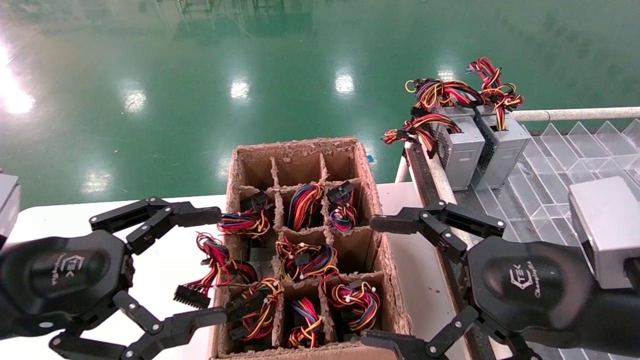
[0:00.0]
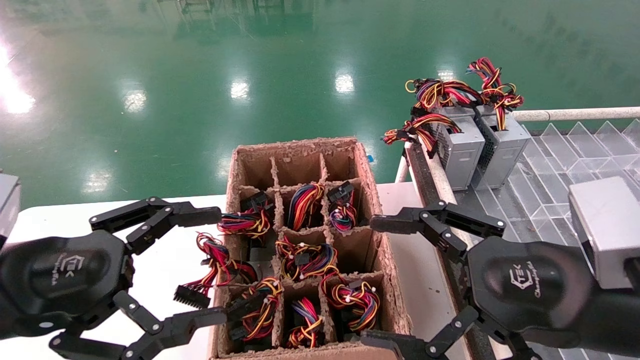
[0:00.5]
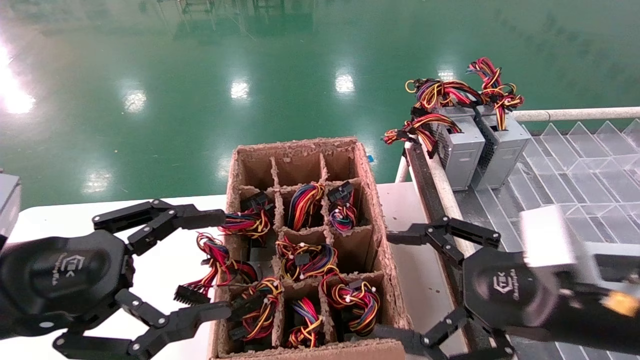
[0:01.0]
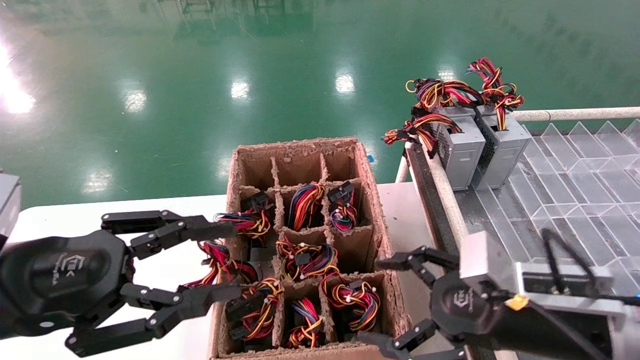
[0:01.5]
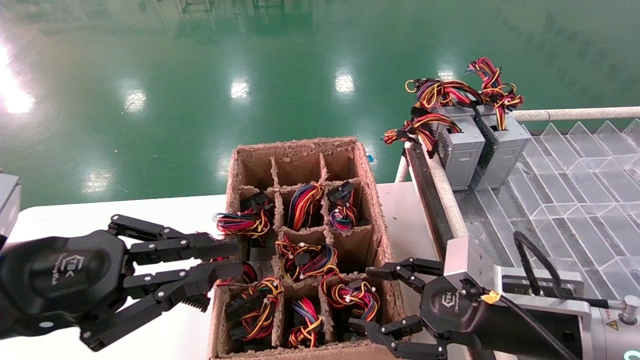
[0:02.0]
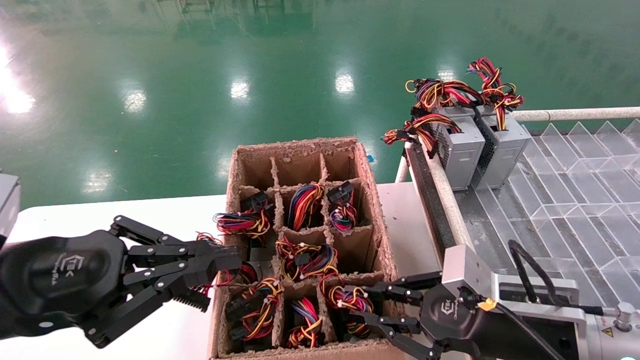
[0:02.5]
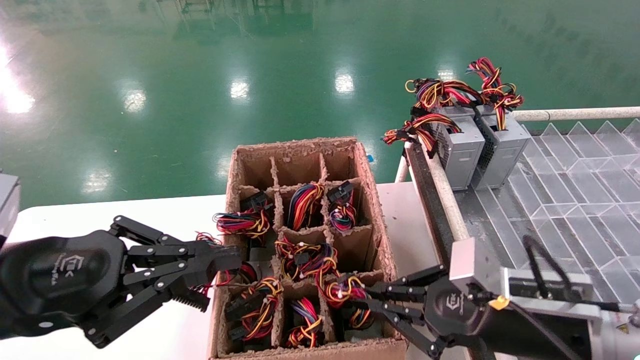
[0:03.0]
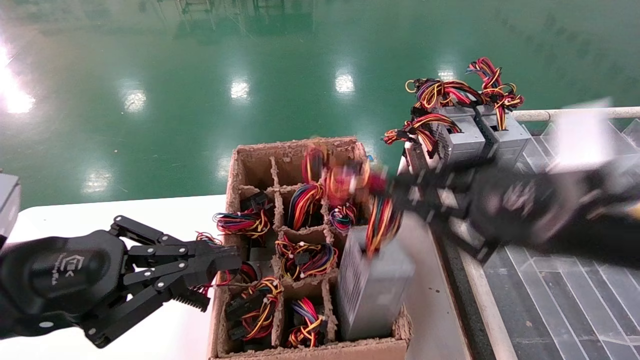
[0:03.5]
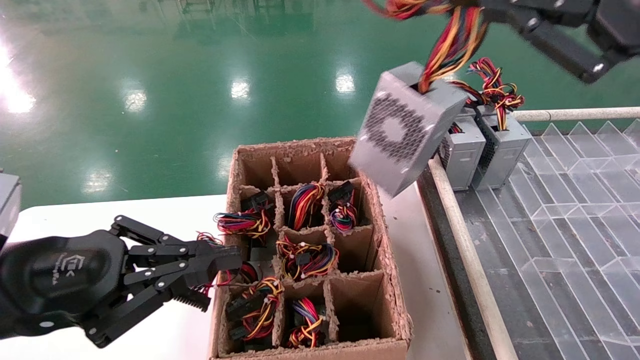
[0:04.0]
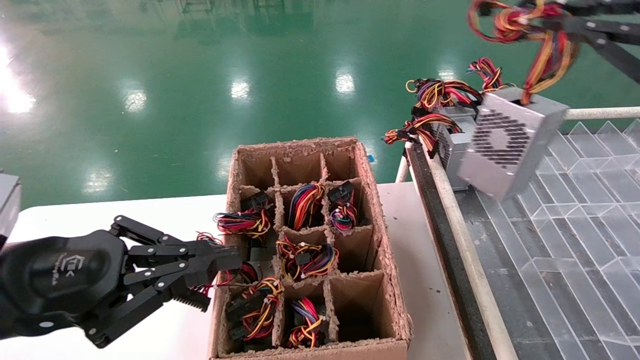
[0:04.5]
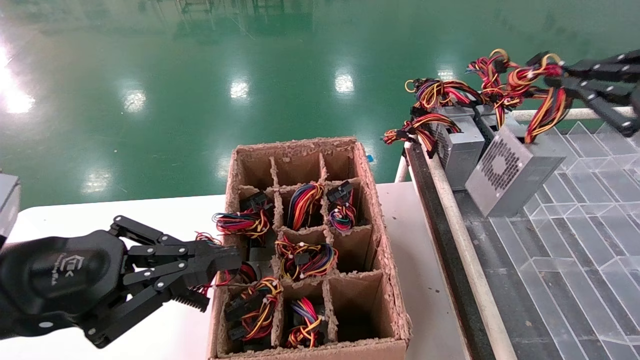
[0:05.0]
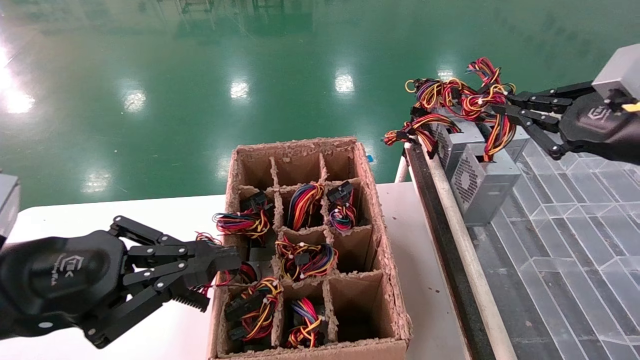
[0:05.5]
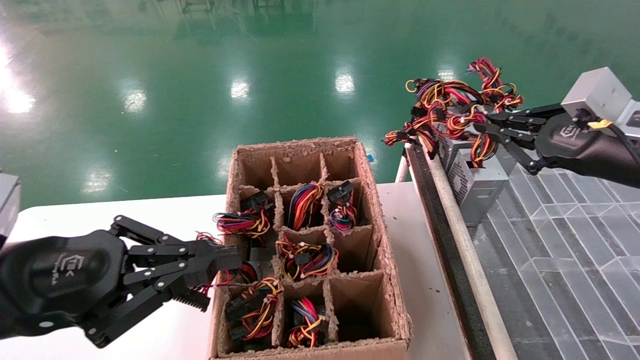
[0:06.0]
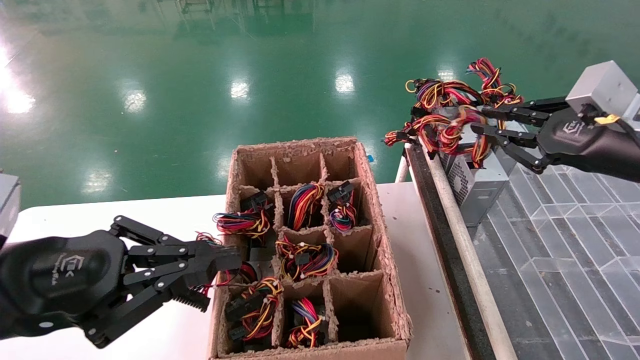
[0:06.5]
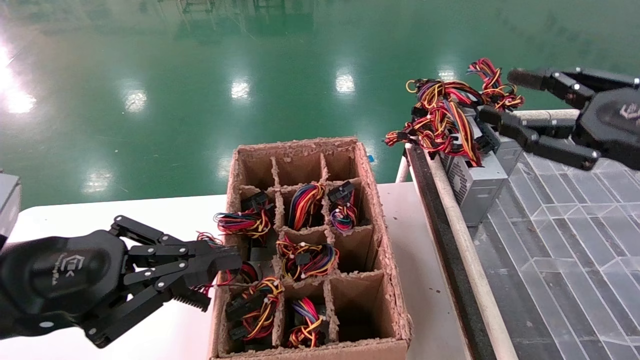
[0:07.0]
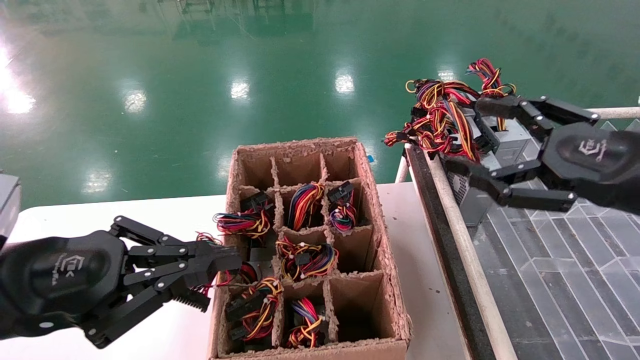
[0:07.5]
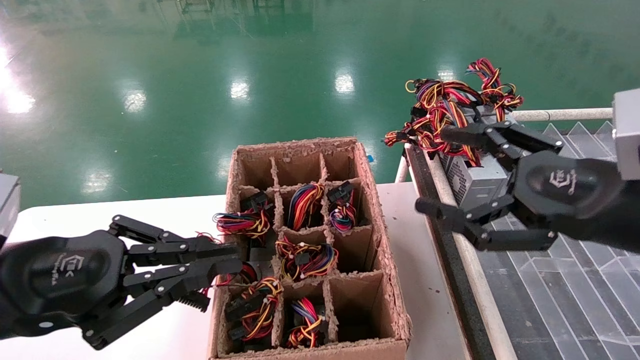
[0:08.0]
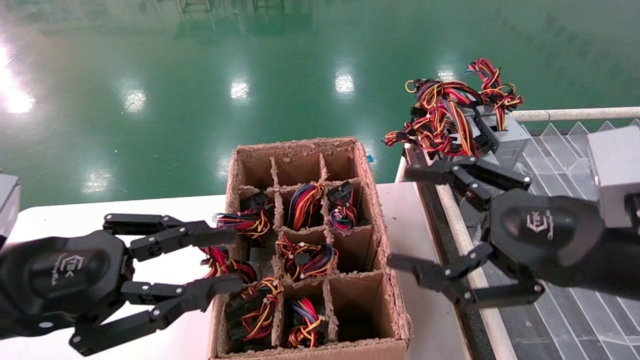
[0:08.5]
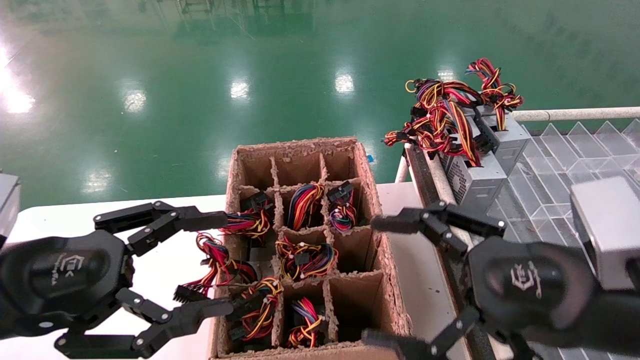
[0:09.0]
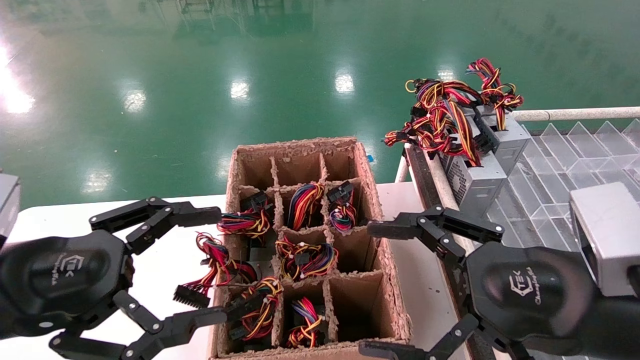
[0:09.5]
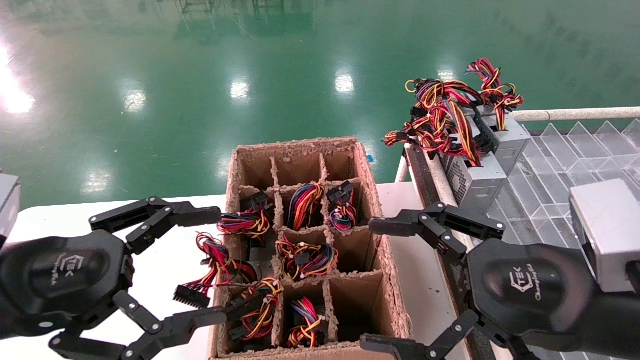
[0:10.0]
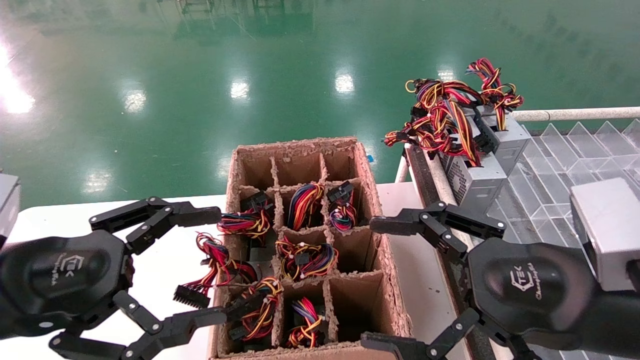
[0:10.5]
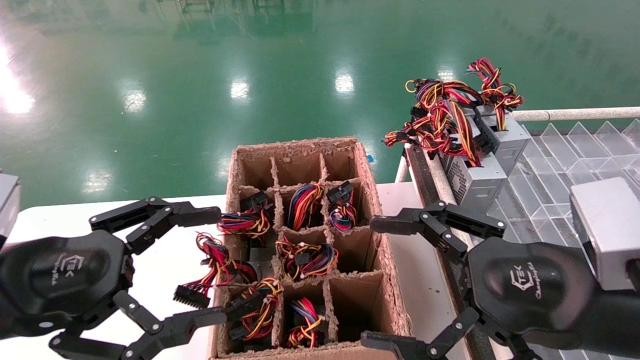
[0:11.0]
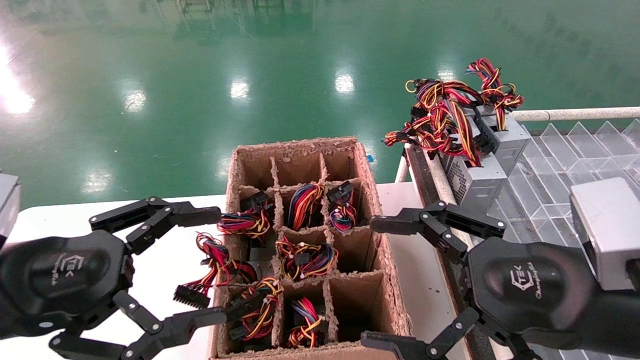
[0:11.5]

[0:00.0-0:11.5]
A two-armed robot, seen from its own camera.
Step, 0:01.0 to 0:02.5: Grab the main unit power supply from the containment box.
Step, 0:03.0 to 0:06.5: Place the main unit power supply in the designated area.
0:00.0 to 0:02.0: The right gripper shifts approximately 10 cm downward and forward; the left gripper closes.
0:02.0 to 0:04.0: The right gripper shifts some 25 cm upward, and closes.
0:04.0 to 0:06.0: The right gripper is displaced forward, downward and to the right by roughly 20 cm.
0:06.0 to 0:07.5: The right gripper goes about 5 cm backward, and opens.
0:07.5 to 0:09.5: The right gripper moves to the left and downward, approximately 10 cm. The left gripper opens up.
0:09.5 to 0:11.5: Both grippers stay about where they are.

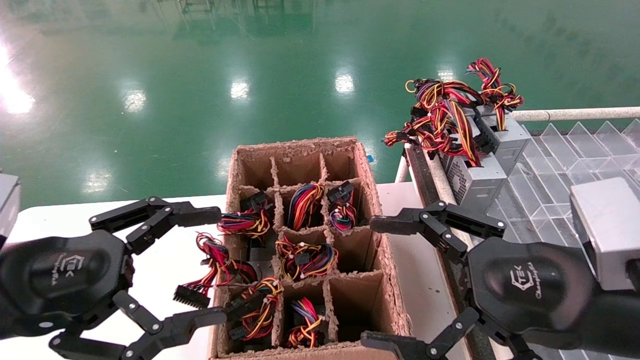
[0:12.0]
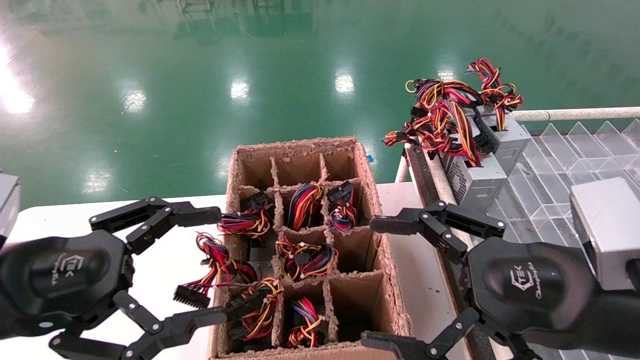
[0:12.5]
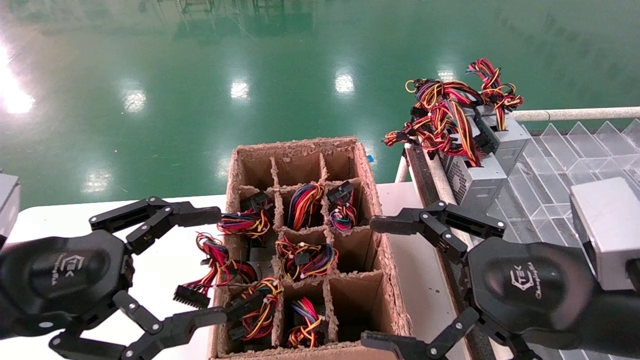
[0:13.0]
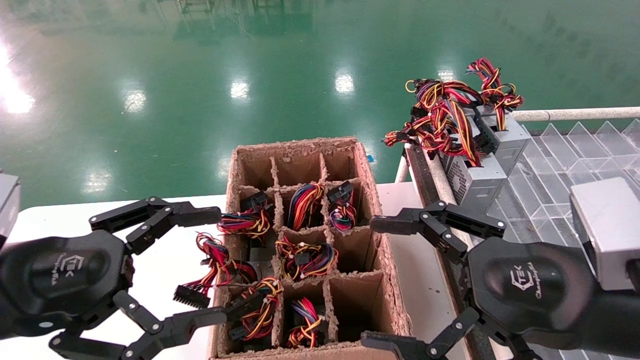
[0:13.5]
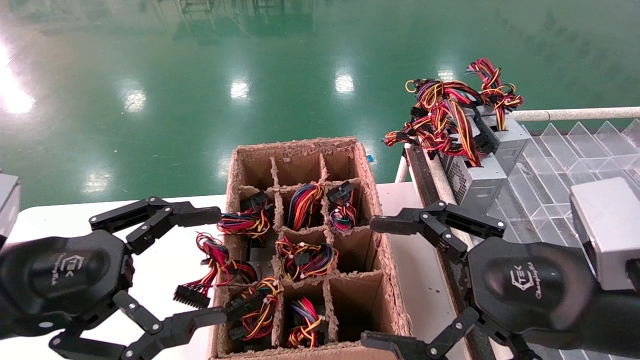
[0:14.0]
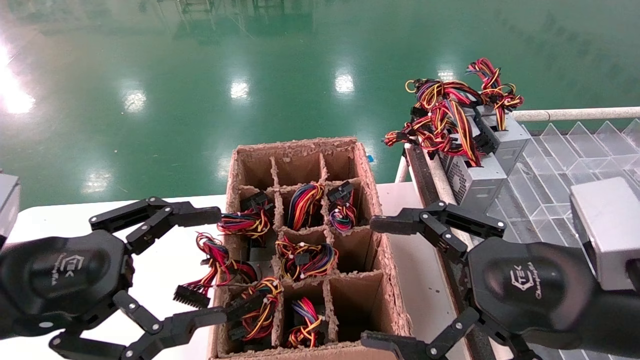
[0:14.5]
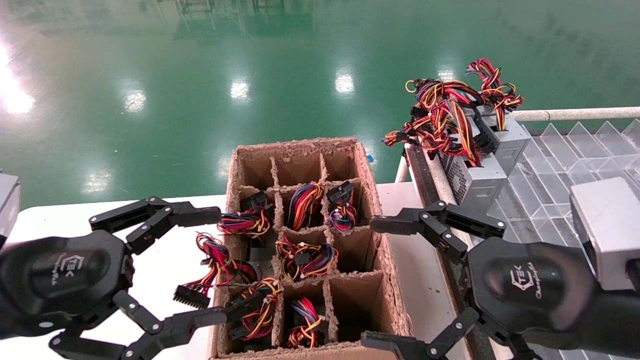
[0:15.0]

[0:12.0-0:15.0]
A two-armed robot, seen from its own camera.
0:12.0 to 0:15.0: Neither gripper changes place.

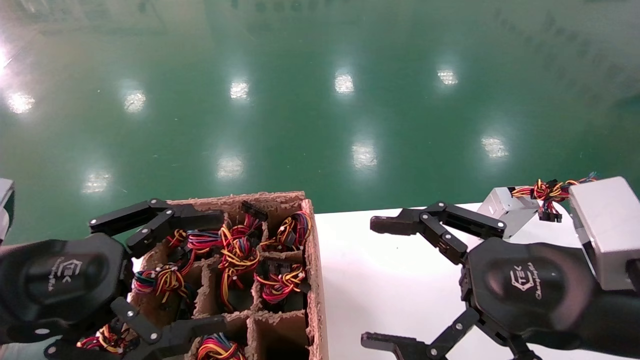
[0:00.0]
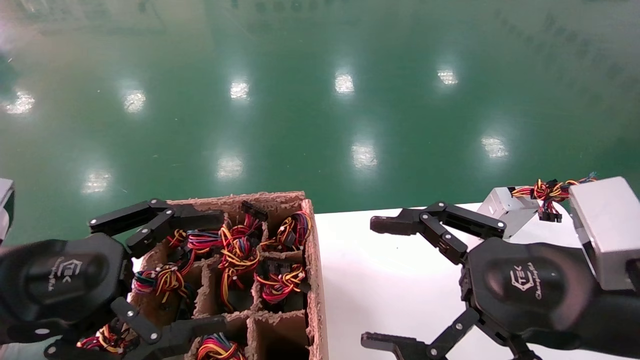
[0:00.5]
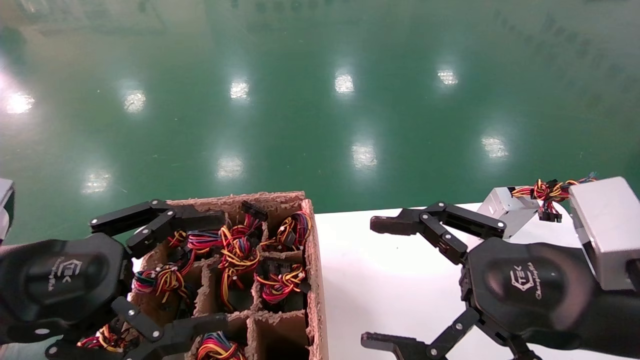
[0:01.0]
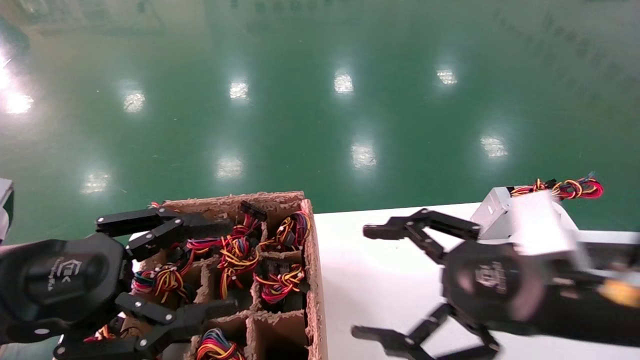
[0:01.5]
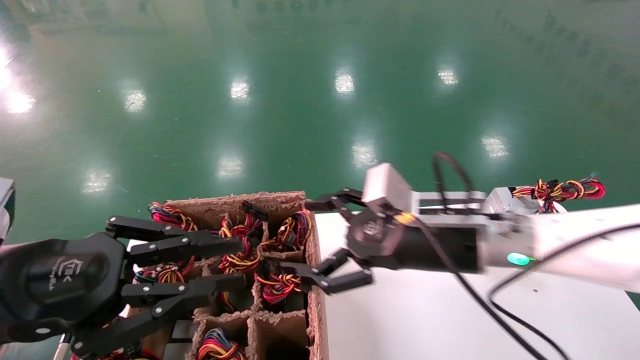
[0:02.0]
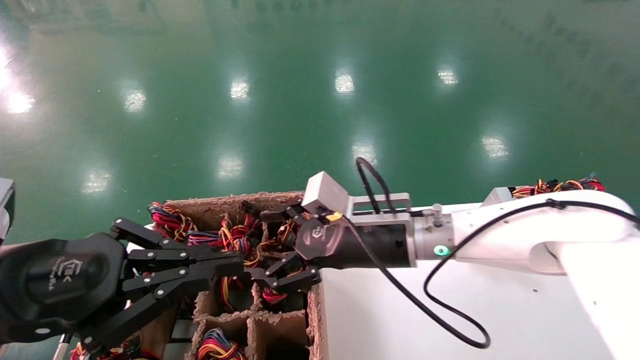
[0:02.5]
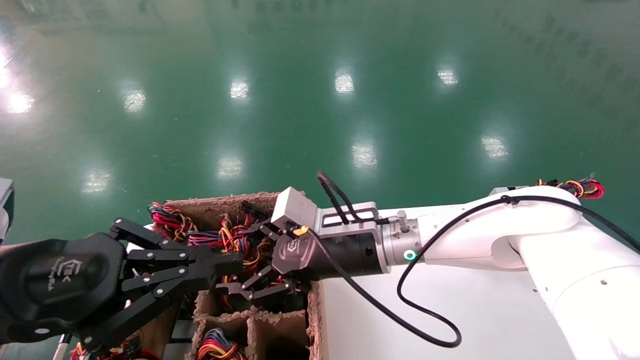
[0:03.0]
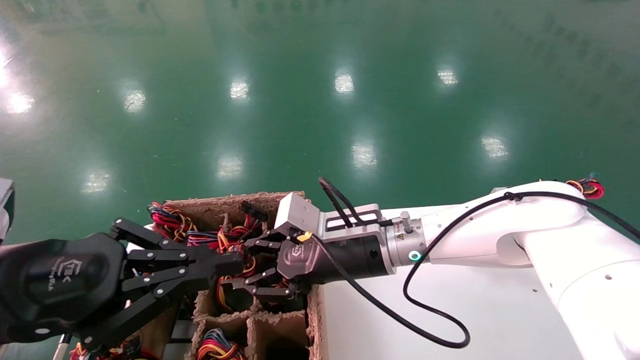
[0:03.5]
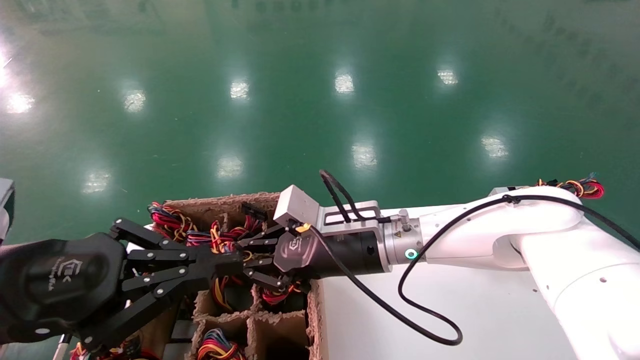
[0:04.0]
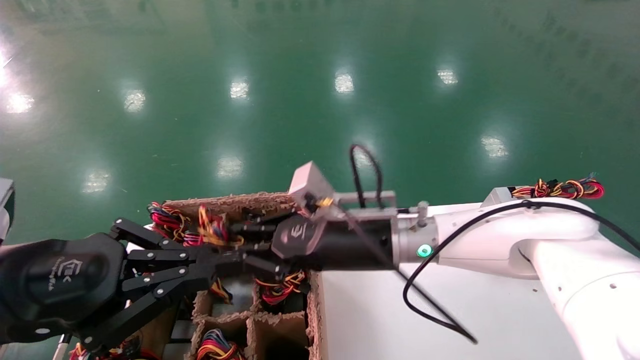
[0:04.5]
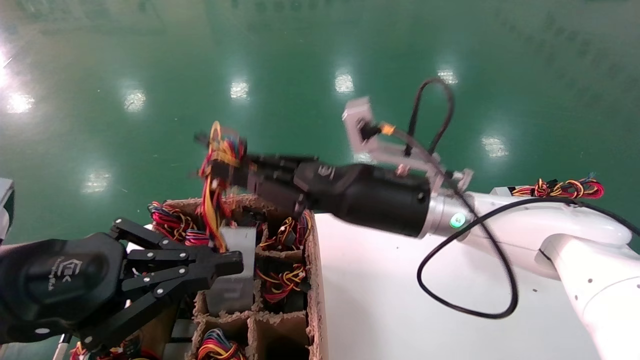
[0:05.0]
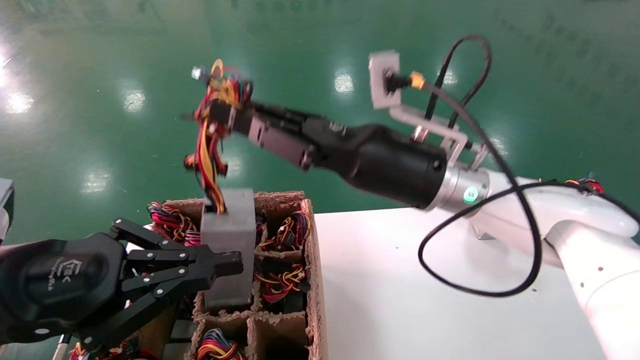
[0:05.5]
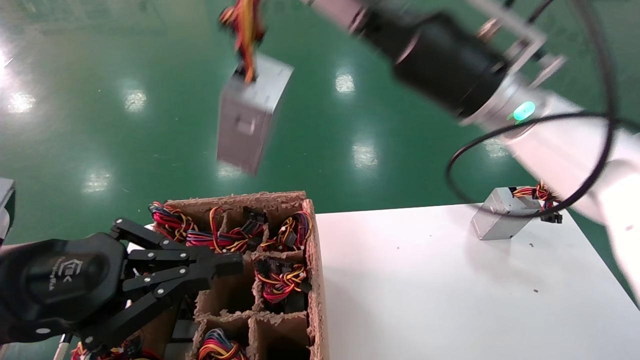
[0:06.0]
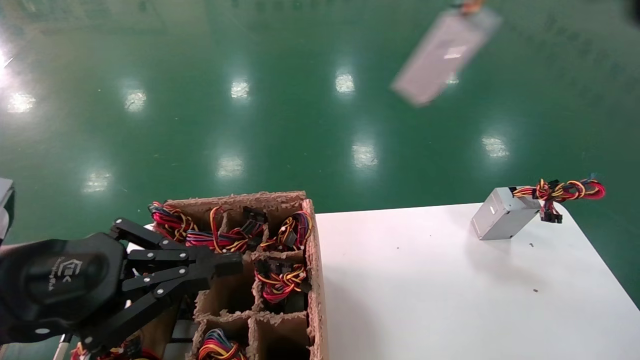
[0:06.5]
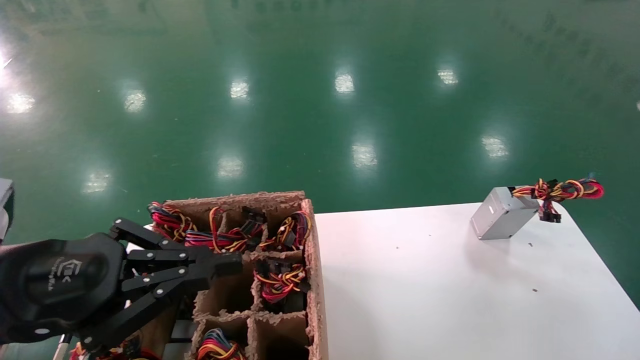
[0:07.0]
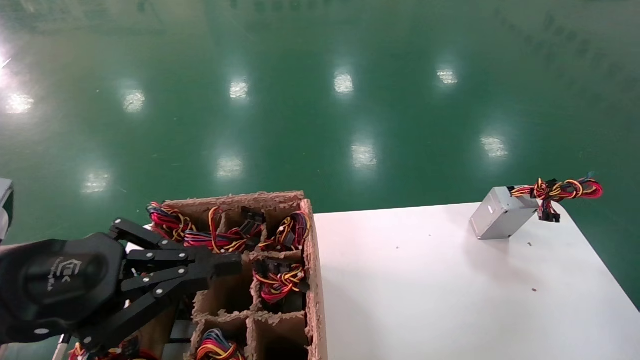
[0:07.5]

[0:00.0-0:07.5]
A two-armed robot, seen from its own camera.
Step, 0:02.0 to 0:03.5: Grab the main unit power supply from the containment box.
0:00.0 to 0:02.0: The left gripper closes up. The right gripper heads forward and to the left, covering approximately 15 cm.
0:02.0 to 0:04.0: The right gripper is displaced to the left and forward by some 10 cm, and closes its fingers.
0:04.0 to 0:05.5: The right gripper heads upward, covering some 10 cm.
0:05.5 to 0:07.5: The right gripper is displaced to the right by about 50 cm.
